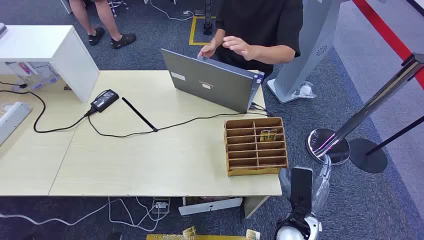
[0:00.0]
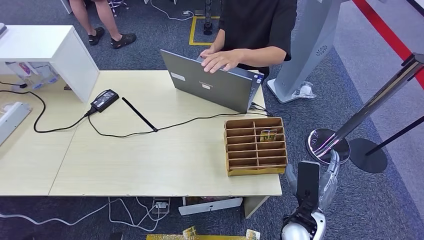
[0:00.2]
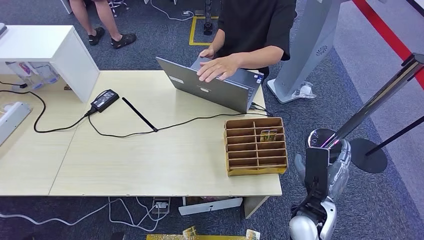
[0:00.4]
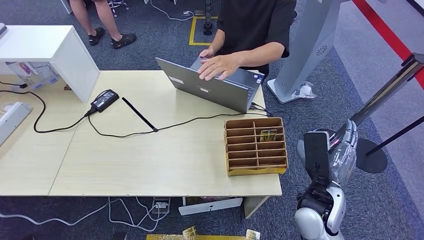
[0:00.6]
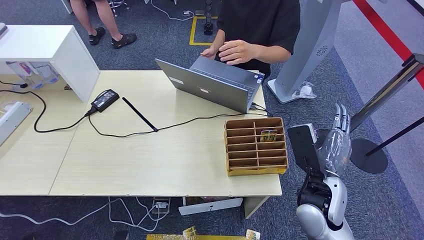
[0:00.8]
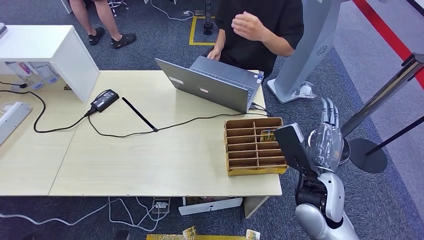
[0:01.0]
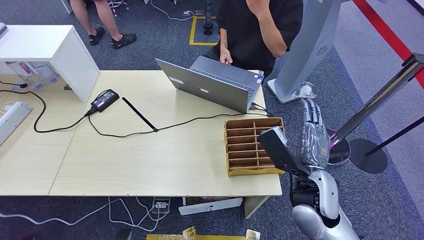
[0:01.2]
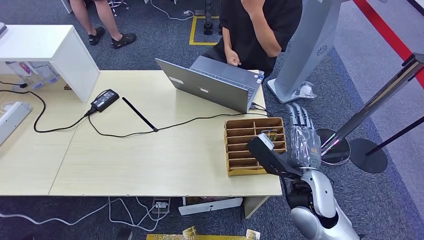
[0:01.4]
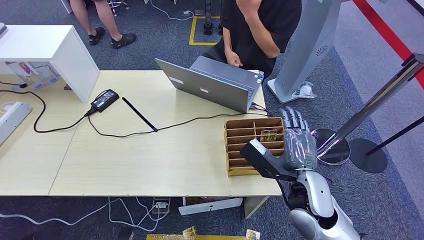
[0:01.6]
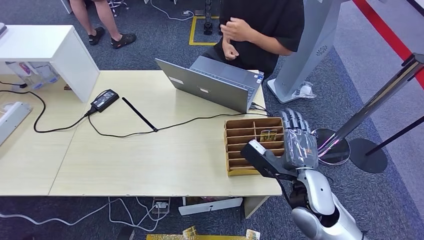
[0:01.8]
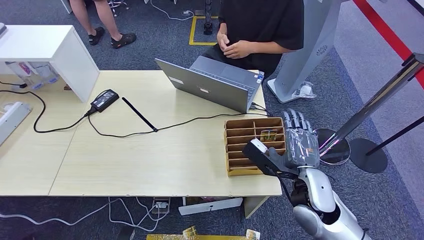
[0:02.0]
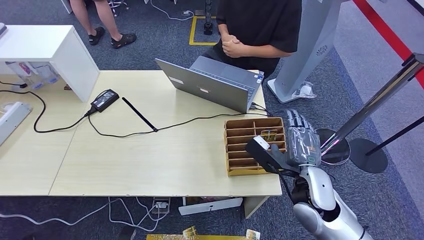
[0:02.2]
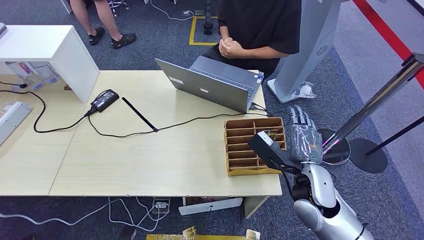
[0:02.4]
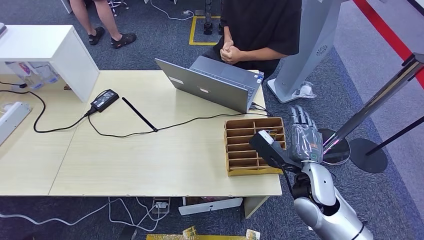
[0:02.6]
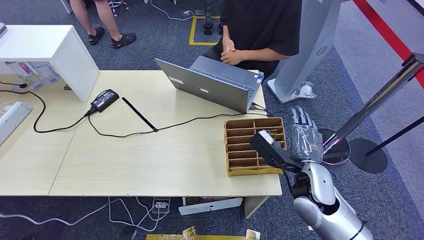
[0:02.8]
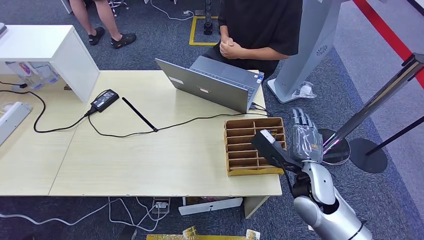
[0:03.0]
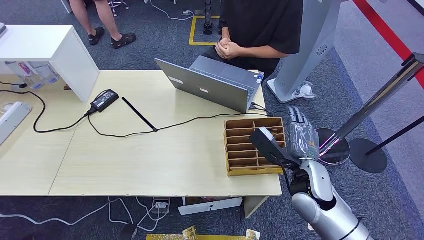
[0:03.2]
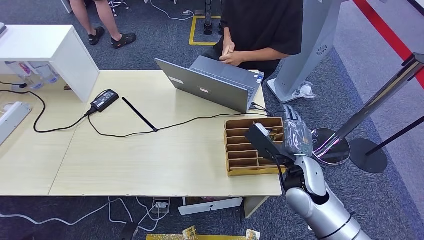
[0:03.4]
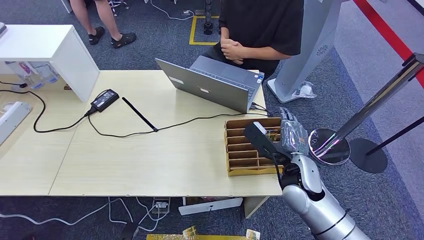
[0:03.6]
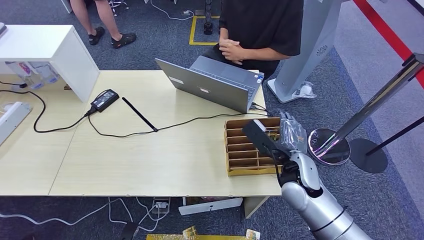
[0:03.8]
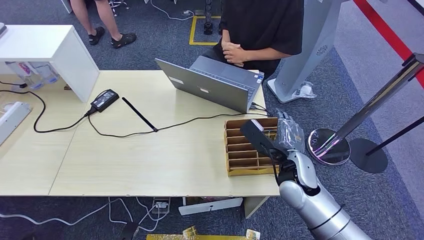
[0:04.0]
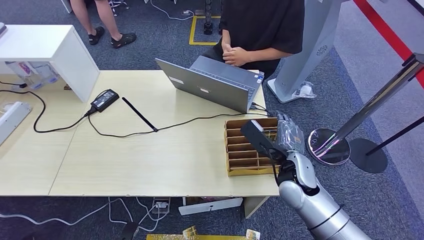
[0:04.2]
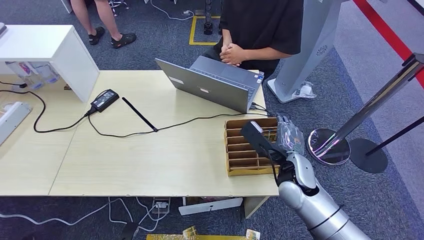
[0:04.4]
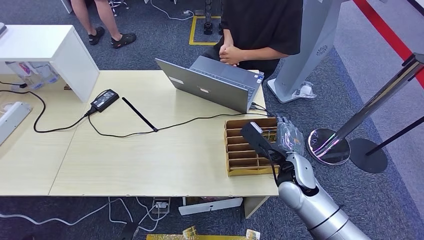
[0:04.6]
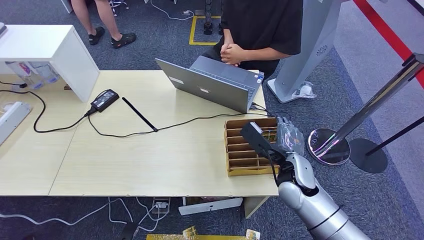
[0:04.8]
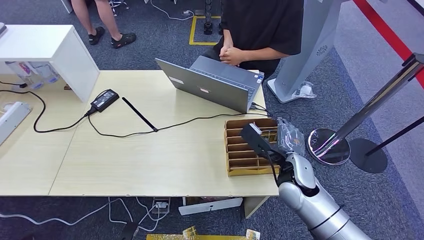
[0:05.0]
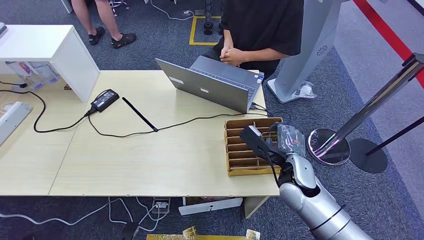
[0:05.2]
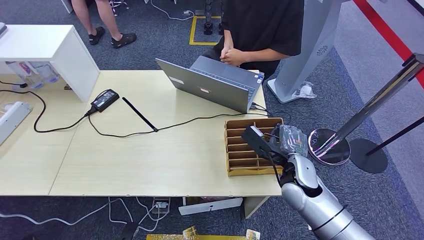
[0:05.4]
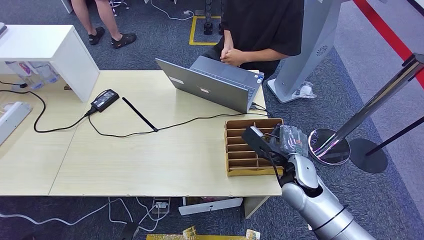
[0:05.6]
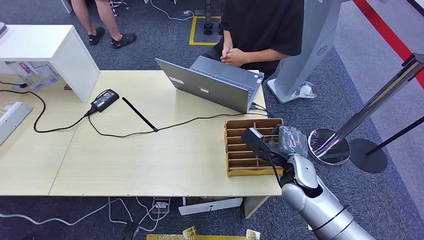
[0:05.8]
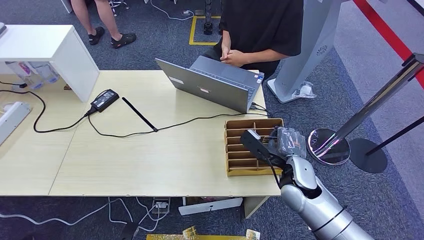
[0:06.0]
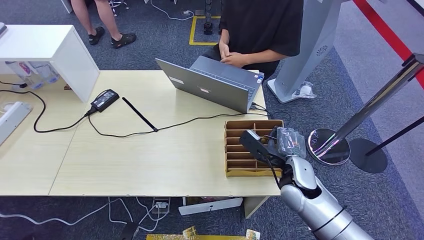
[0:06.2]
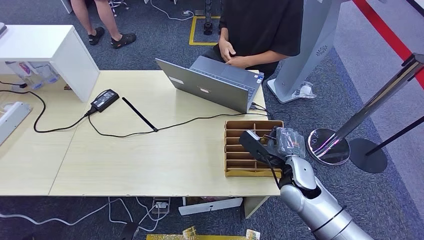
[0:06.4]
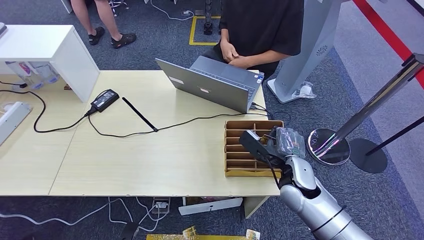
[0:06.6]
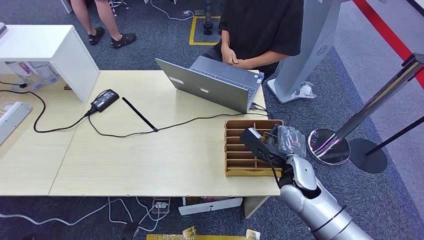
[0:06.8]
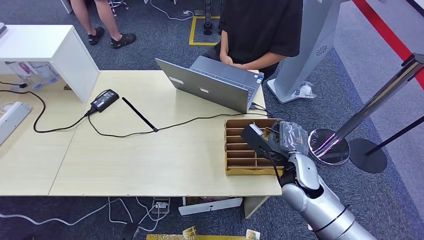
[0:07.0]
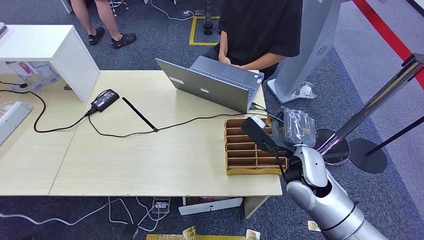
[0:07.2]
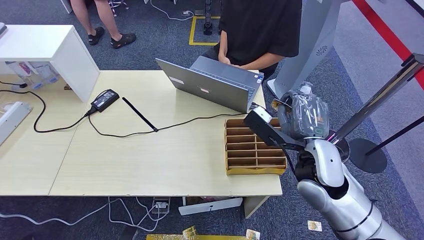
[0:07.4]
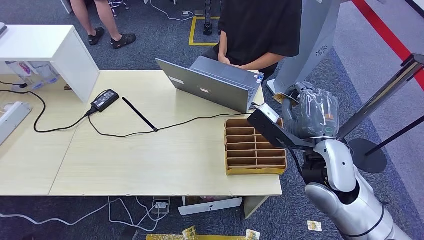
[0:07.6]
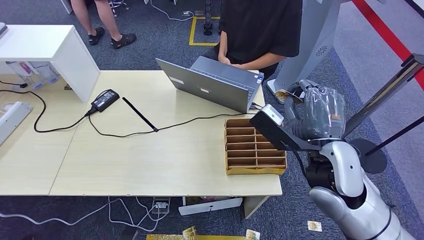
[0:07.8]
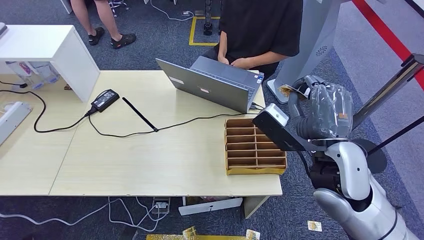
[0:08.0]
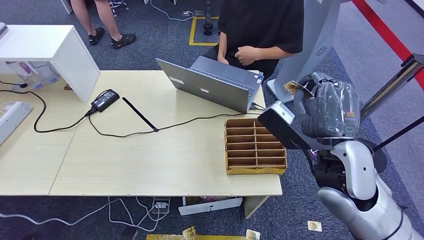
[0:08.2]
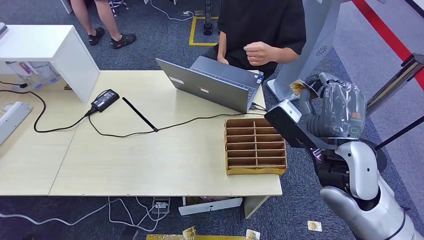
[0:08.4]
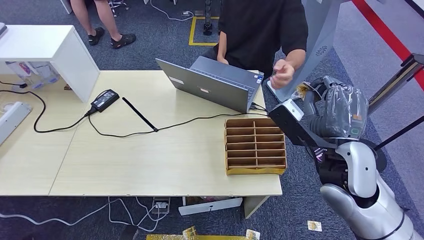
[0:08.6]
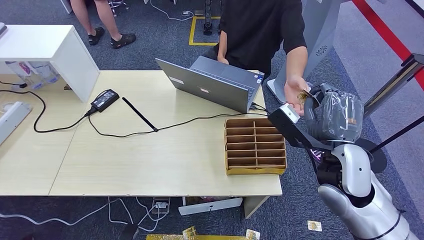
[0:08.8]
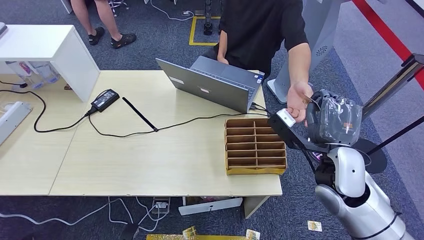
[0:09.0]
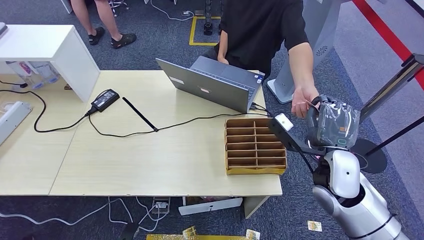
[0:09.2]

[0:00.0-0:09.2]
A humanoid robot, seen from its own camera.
Step, 0:00.0 to 0:08.4: Pick up the room card from the card holder.
Step, 0:08.6 to 0:09.2: Hand the room card to the target.
0:01.6 to 0:04.6: The hands stay close to where they were, moving slightly.
0:04.6 to 0:06.2: There are only small adjustments of the hands.
0:06.2 to 0:07.6: The right hand goes approximately 15 cm upward.
0:07.6 to 0:09.2: The right hand goes some 10 cm to the right and downward.
